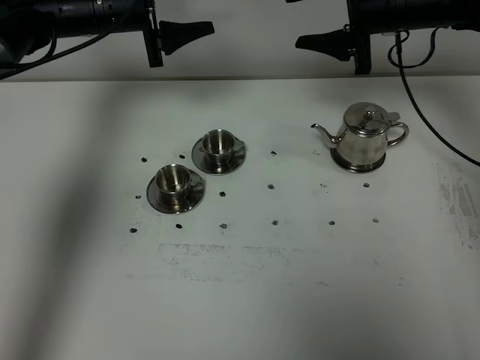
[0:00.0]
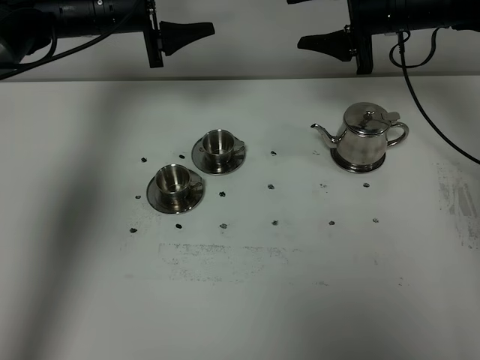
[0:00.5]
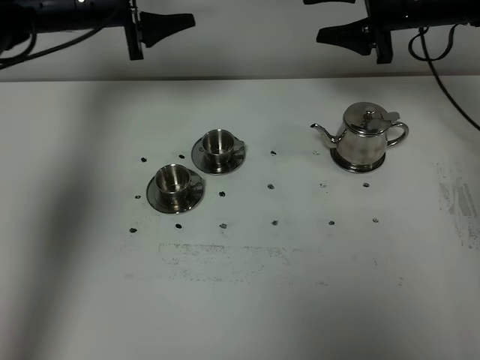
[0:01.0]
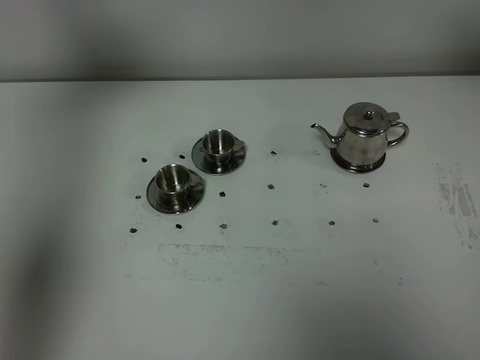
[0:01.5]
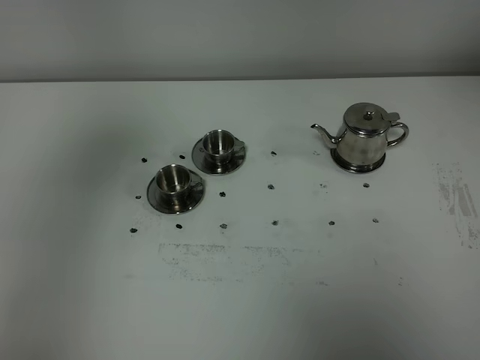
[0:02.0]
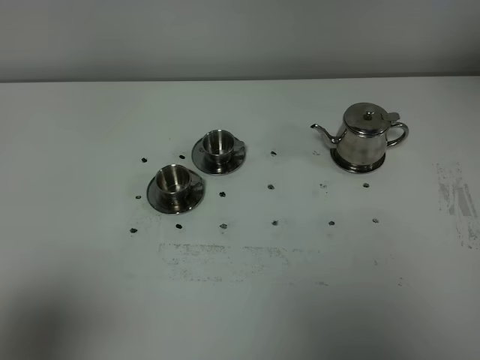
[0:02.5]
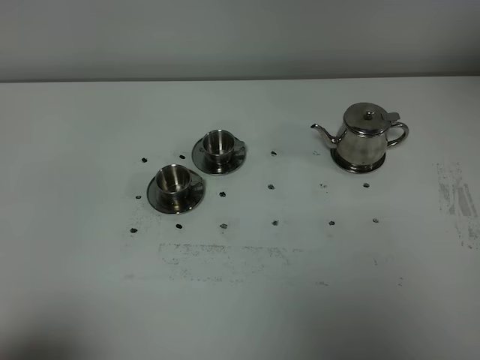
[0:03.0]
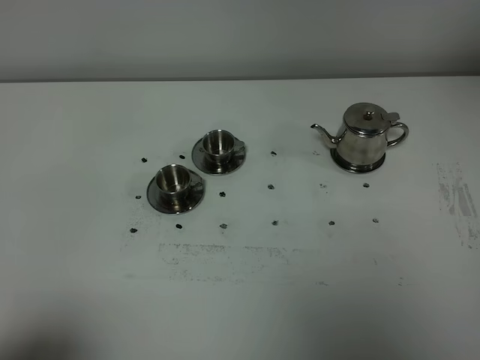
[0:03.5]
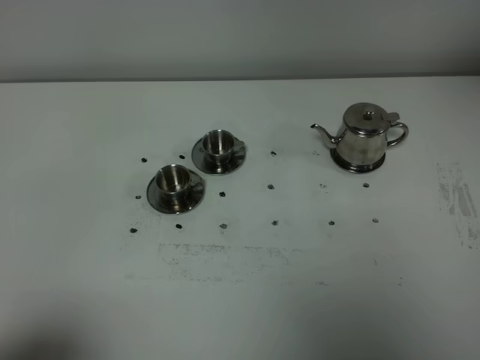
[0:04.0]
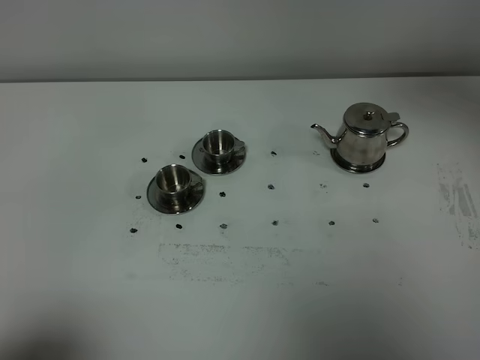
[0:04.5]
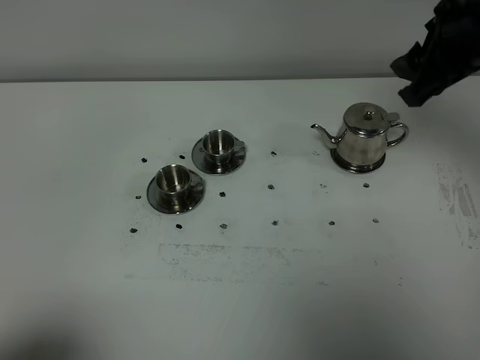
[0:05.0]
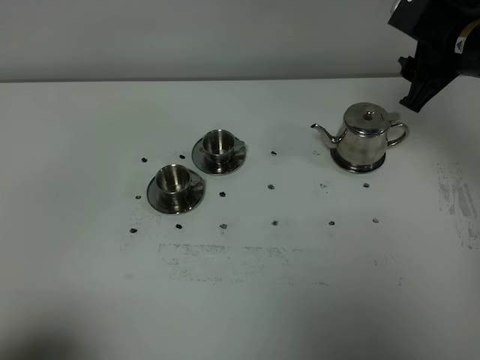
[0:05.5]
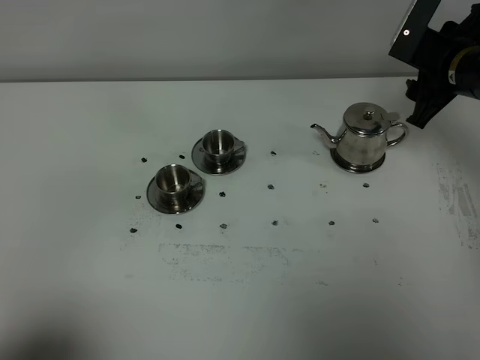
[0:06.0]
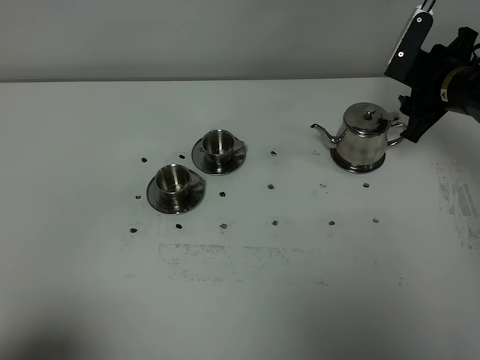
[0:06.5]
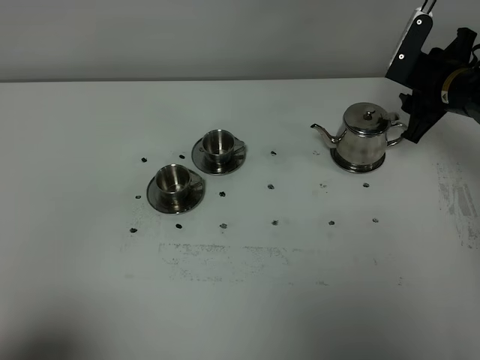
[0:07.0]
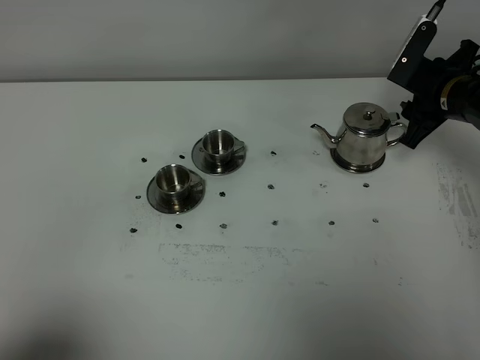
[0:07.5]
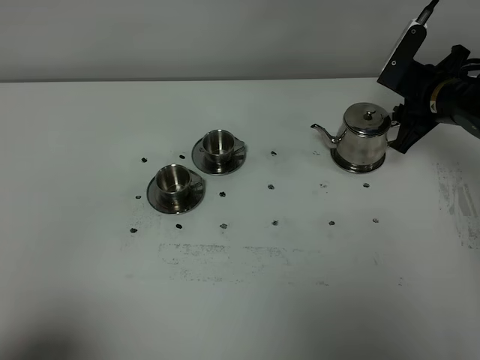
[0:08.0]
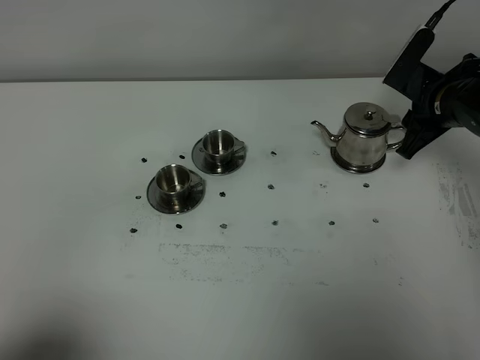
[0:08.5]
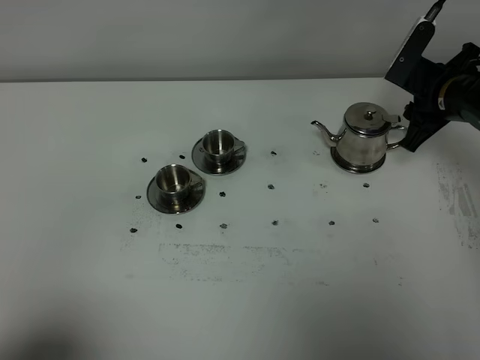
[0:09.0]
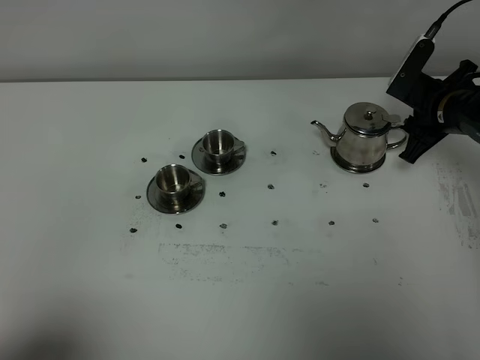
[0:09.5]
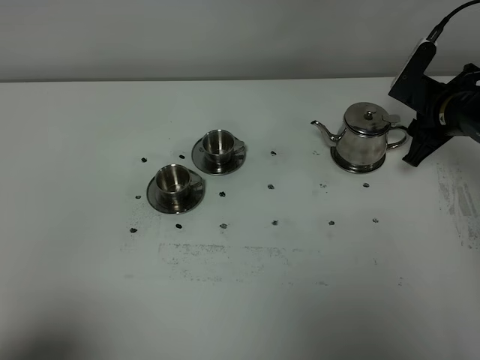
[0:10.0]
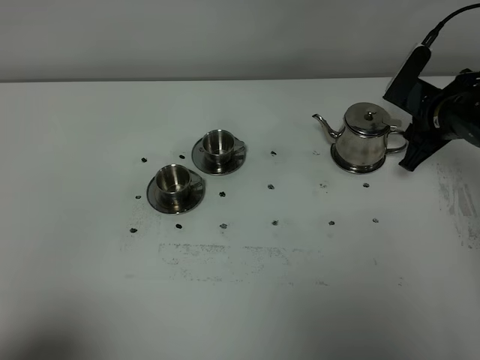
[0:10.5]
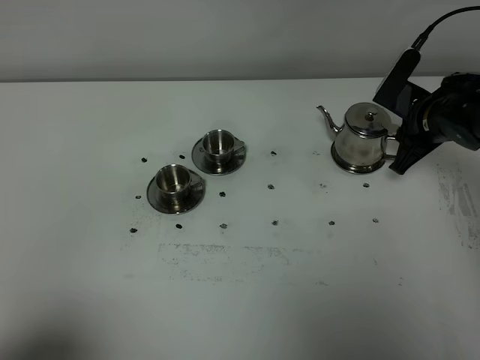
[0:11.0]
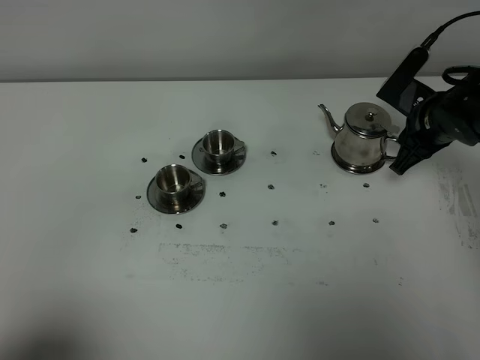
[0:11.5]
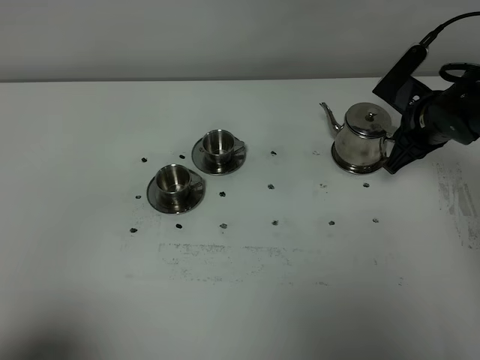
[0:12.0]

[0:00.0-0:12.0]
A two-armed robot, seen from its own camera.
Task of the whole recording: grasp the stainless steel teapot and pour the tea into the two stainless steel teacups one by one, put the stainless steel teapot back in its original place.
0:00.0 to 0:02.0: The right gripper moves upward, backward and to the right, roughly 35 cm, while the left gripper heads backward and upward, covering some 40 cm.
0:02.0 to 0:04.0: The left gripper heads downward and backward, covering roughly 30 cm.
0:04.0 to 0:06.0: The right gripper moves downward and forward, about 35 cm.
0:06.0 to 0:08.0: The right gripper is displaced downward by approximately 5 cm, and closes.
0:08.0 to 0:12.0: The grippers make only small movements.

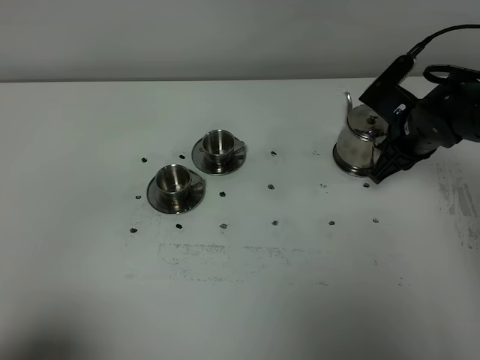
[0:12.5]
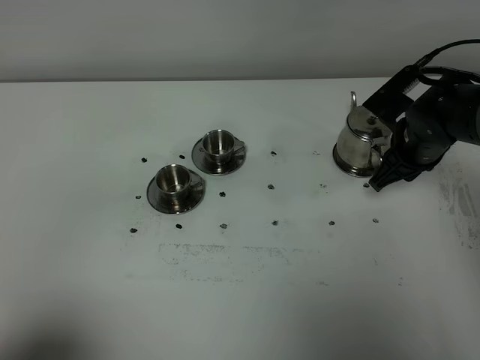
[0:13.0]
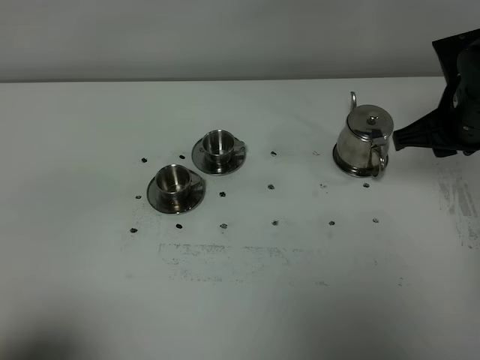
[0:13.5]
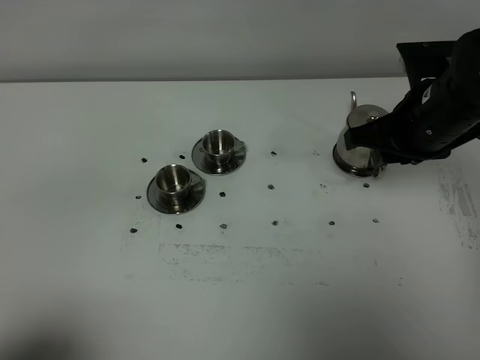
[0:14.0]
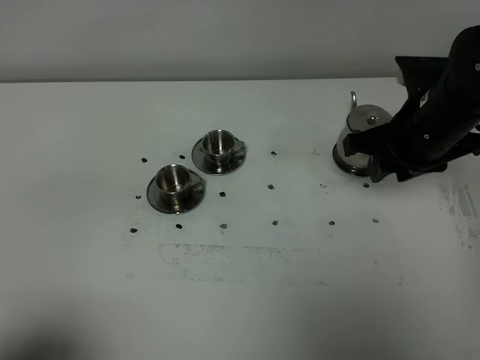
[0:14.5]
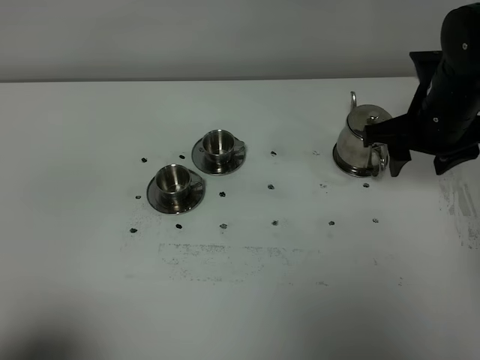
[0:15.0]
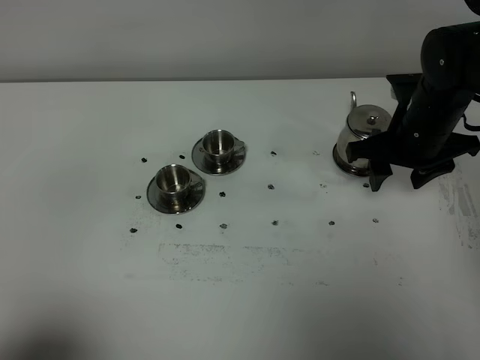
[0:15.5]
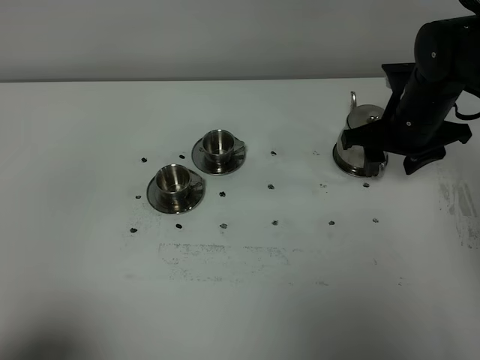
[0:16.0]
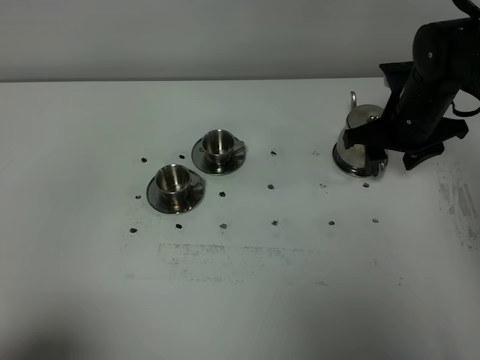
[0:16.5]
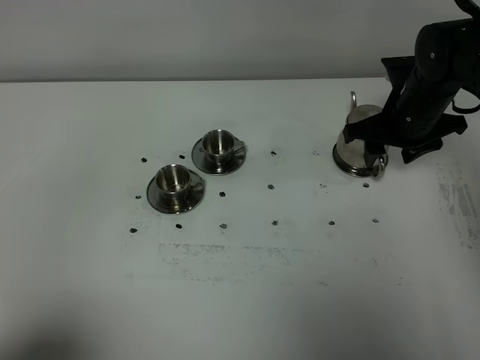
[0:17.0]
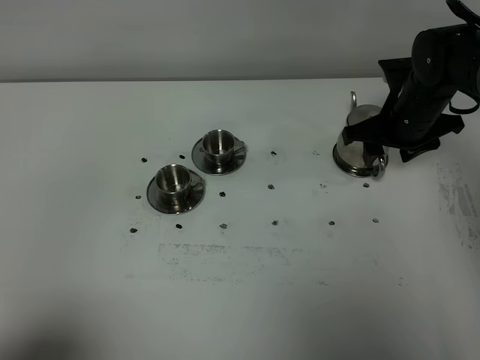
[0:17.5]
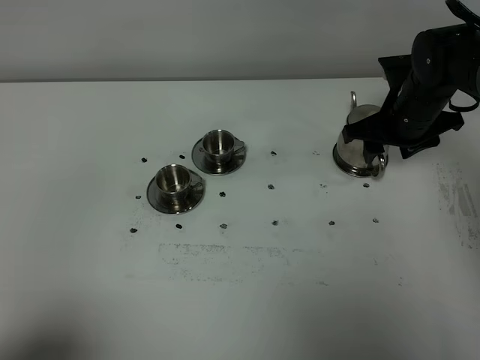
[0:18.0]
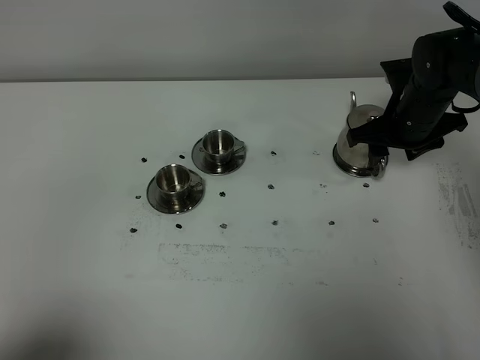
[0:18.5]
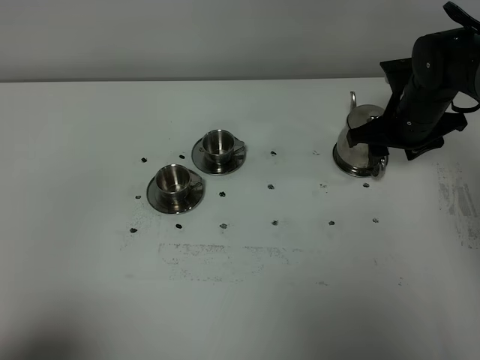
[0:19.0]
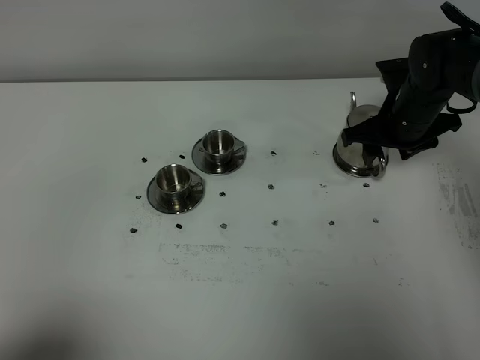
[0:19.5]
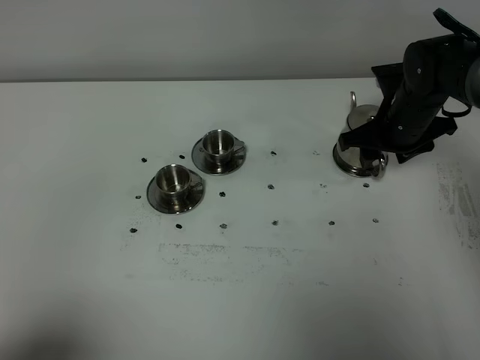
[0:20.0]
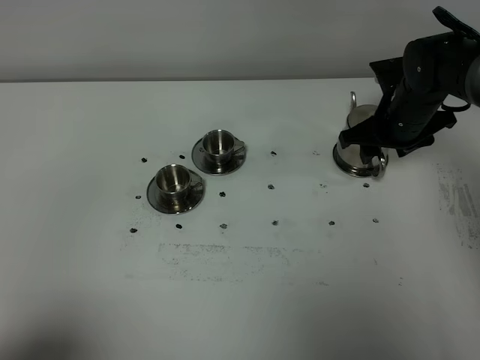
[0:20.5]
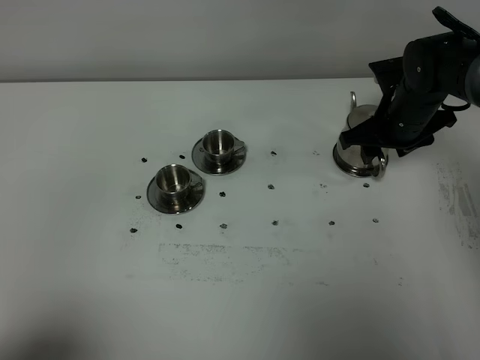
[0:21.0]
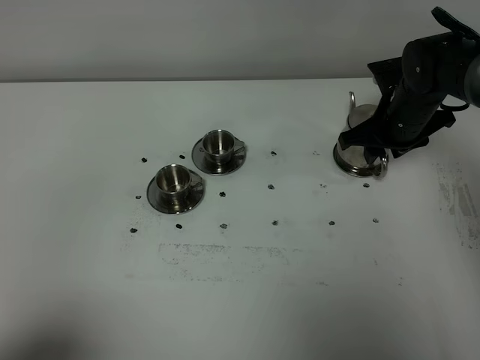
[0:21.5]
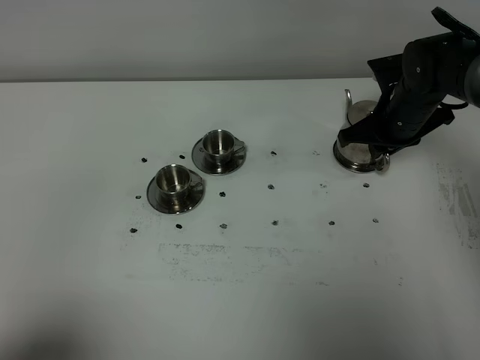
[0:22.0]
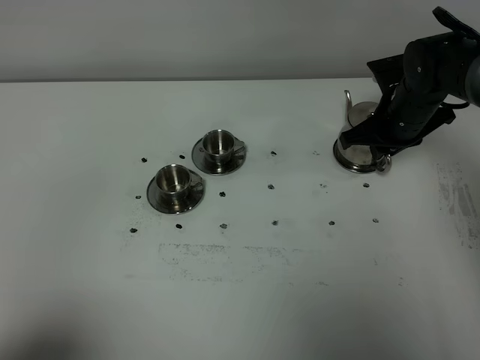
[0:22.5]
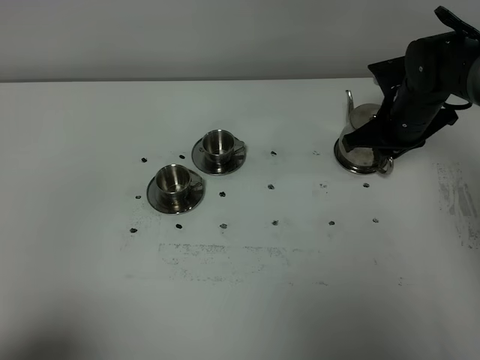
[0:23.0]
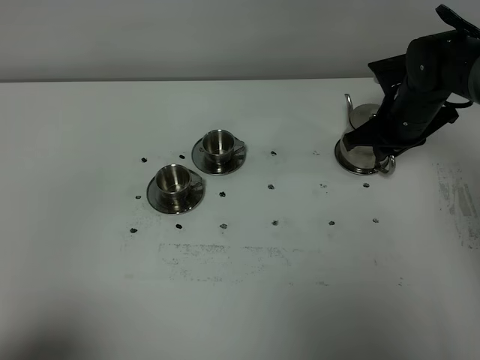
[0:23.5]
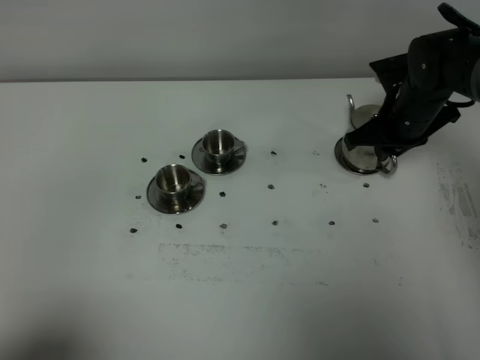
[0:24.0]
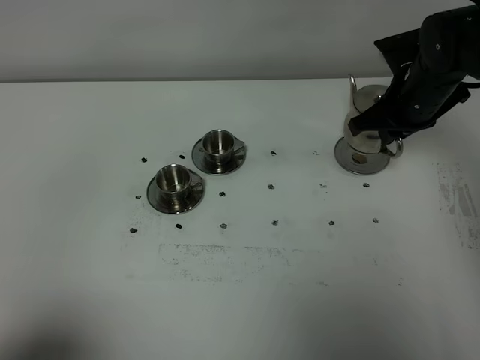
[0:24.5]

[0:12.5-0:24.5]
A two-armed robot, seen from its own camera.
Task of the whole recording: grasp the stainless steel teapot and pour the tea into the two stainless steel teacups one by one, put the stainless steel teapot back in its original place.
Step, 0:12.5 to 0:24.5: Pick up the teapot with the right gripper.
0:12.5 to 0:14.5: The right gripper travels upward and backward by about 10 cm.
0:14.5 to 0:16.5: The right gripper travels forward and downward by some 10 cm, and opens its fingers.
0:16.5 to 0:18.5: There are only small adjustments of the grippers.
0:18.5 to 0:20.5: Both grippers stay put.
0:20.5 to 0:22.5: The right gripper closes up.
0:22.5 to 0:24.5: The right gripper heads upward, covering approximately 5 cm.

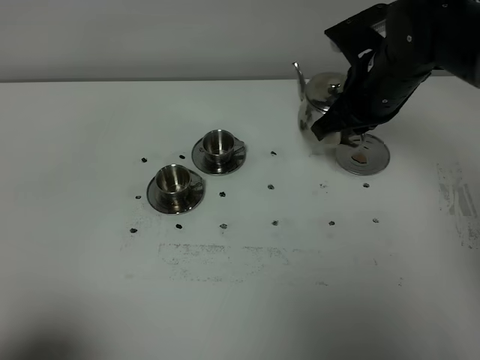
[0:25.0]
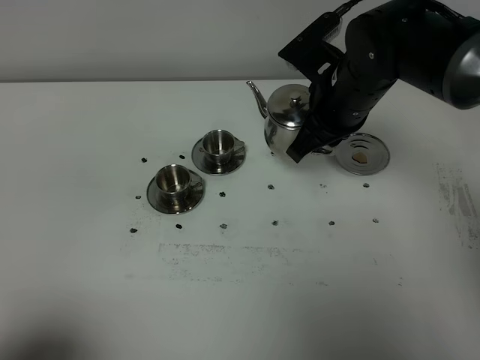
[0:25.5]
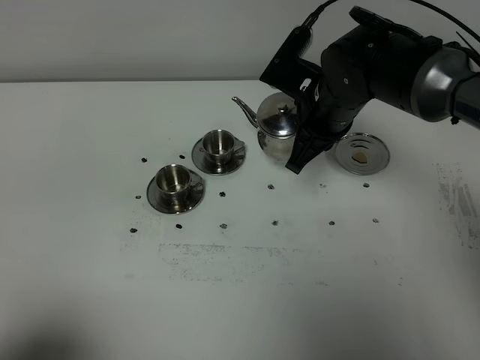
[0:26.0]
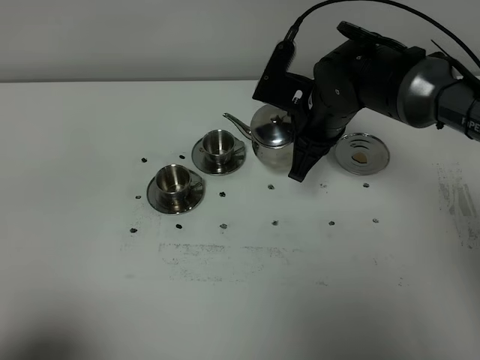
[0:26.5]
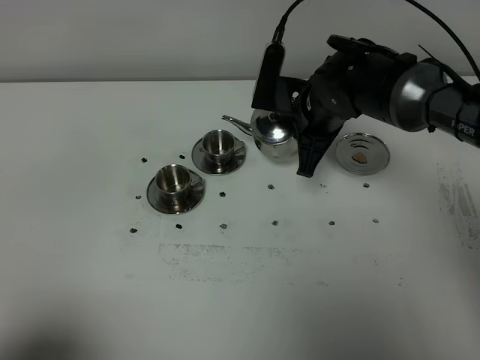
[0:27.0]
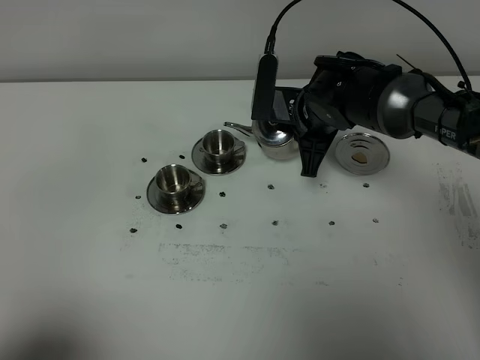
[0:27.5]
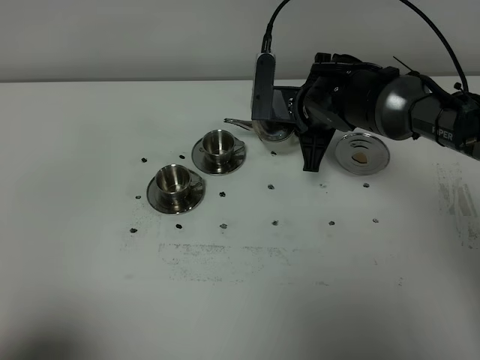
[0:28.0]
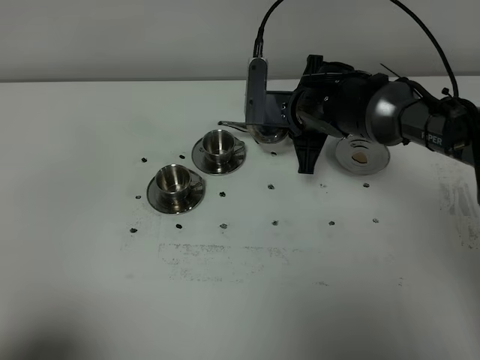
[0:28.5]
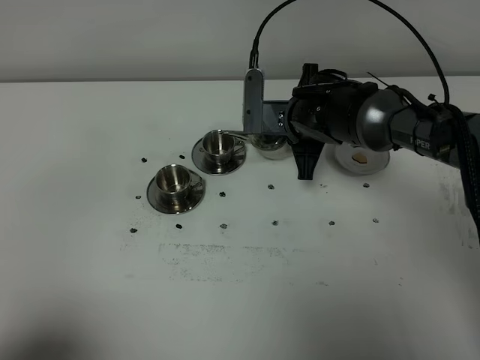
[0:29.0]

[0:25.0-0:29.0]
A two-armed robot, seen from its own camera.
Task of the whole recording: grasp the stainless steel teapot and pour the tea into the two stainless steel teacups one by one, put the stainless steel teapot back in its original place.
0:25.0 to 0:27.0: The right gripper goes roughly 10 cm downward and to the left.
0:27.0 to 0:29.0: The grippers stay close to where they were, moving slightly.
